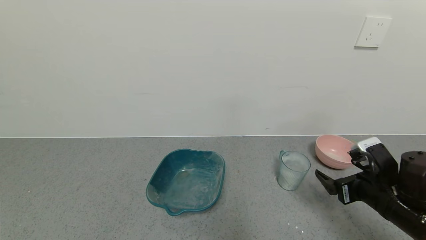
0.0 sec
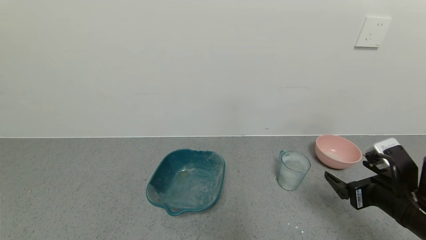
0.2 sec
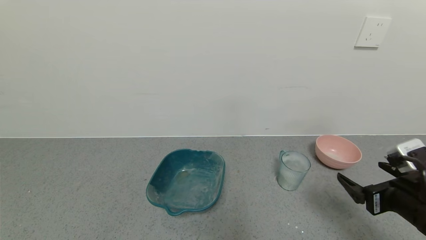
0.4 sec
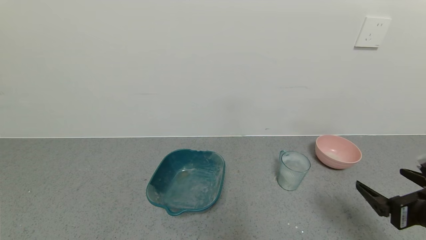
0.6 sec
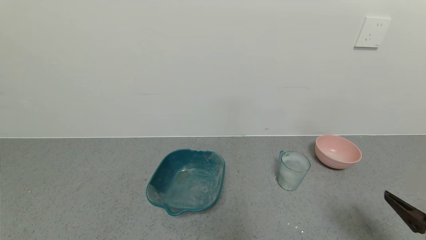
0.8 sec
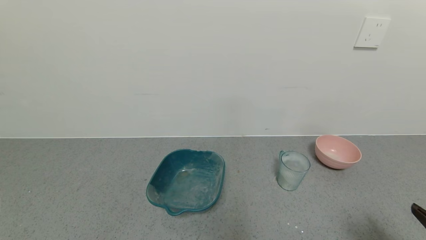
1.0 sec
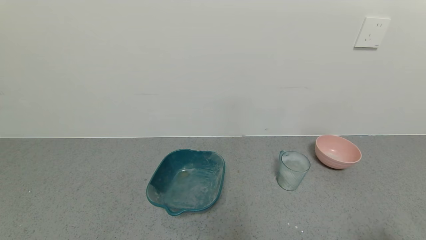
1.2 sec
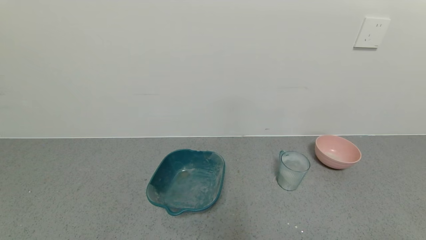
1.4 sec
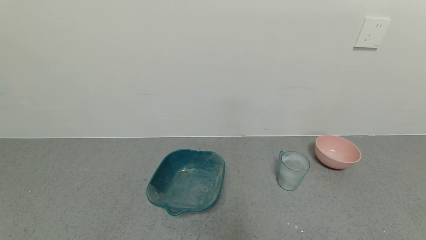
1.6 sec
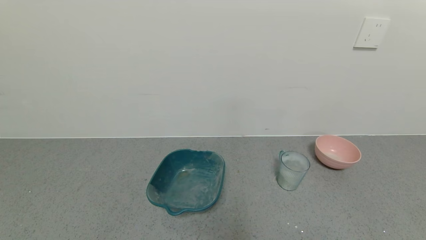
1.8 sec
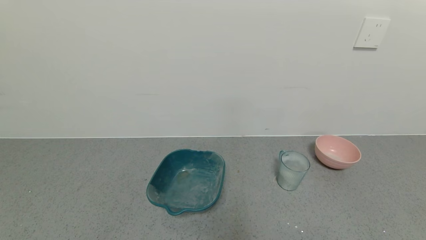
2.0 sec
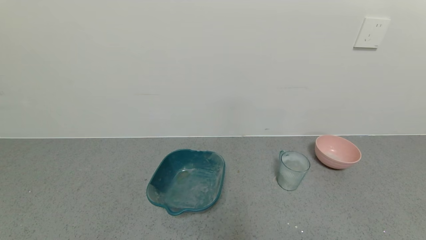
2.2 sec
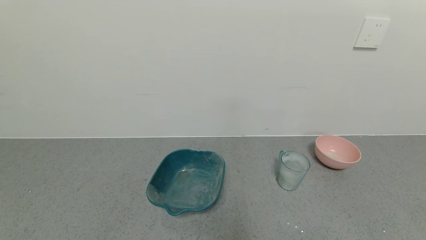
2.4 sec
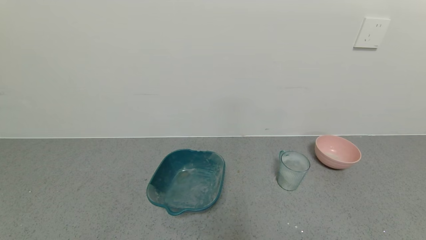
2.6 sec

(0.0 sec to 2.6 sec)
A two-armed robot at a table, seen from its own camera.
Task of the whole recording: use a gripper to pick up the cup and pour the powder into a bowl or tray.
0.0 sec - 1.2 sec: The right gripper goes roughly 20 cm backward.
